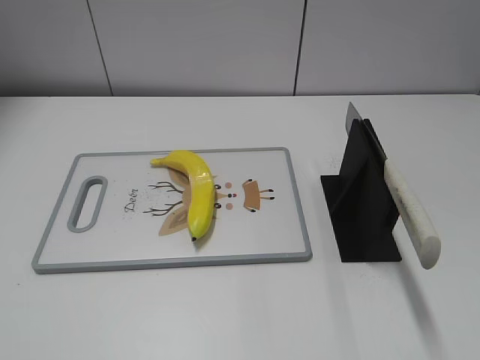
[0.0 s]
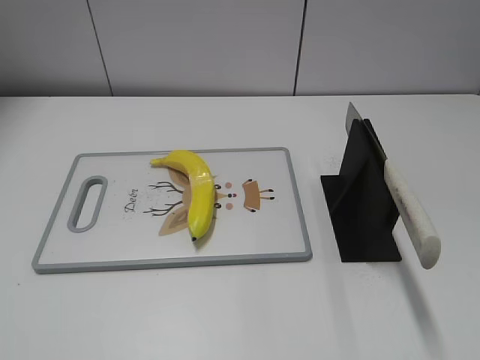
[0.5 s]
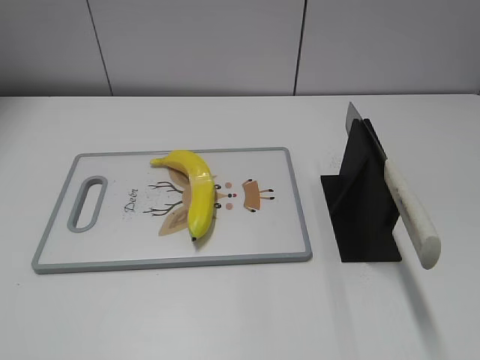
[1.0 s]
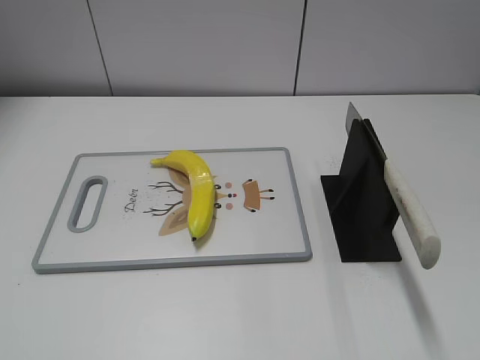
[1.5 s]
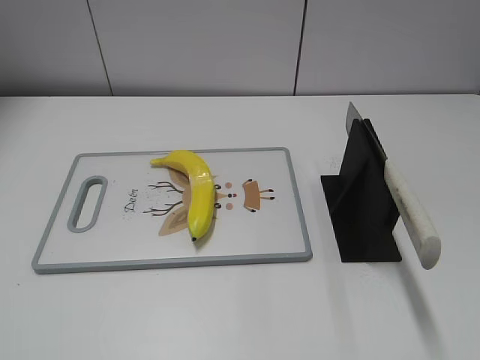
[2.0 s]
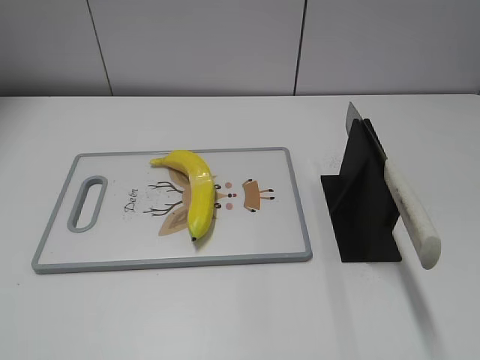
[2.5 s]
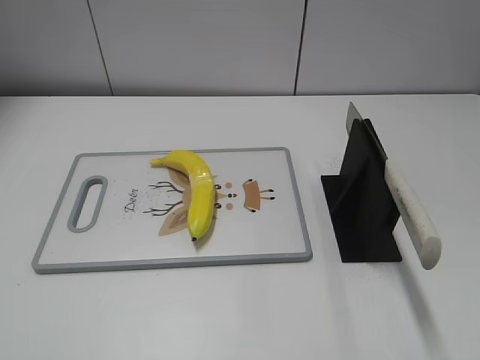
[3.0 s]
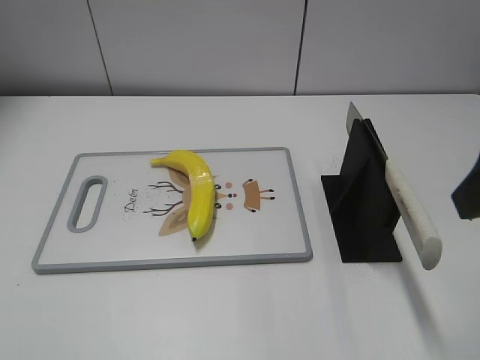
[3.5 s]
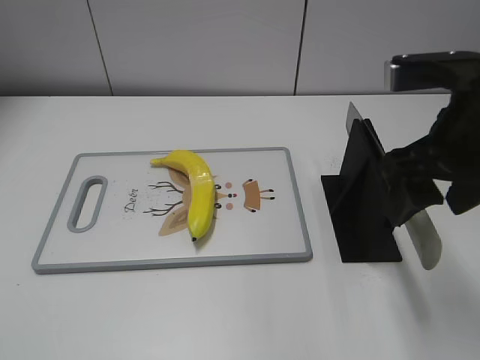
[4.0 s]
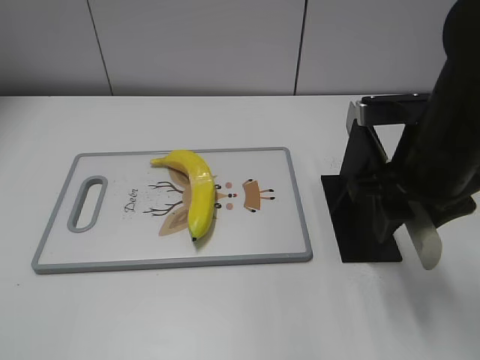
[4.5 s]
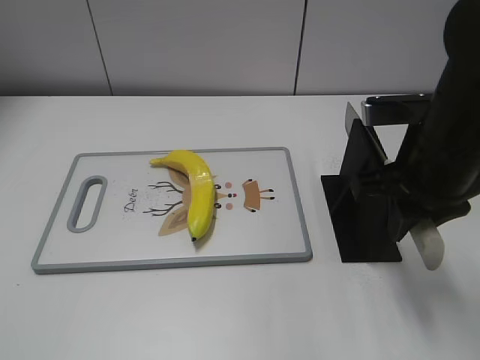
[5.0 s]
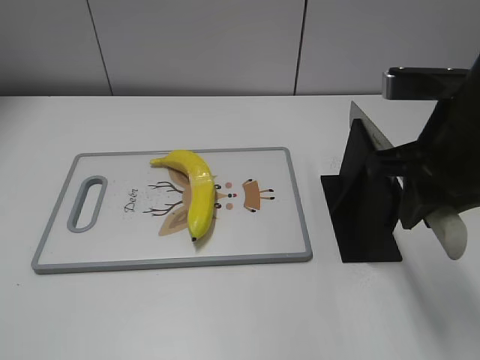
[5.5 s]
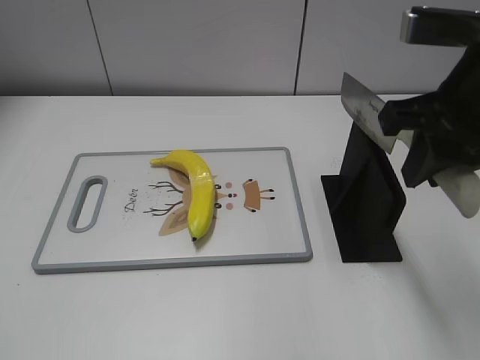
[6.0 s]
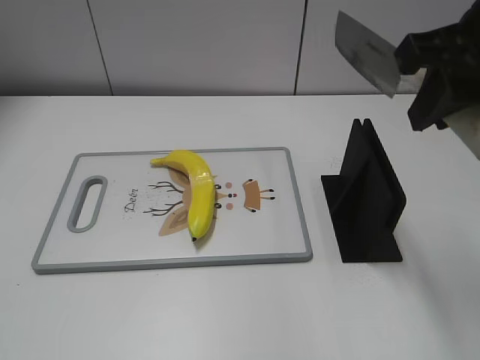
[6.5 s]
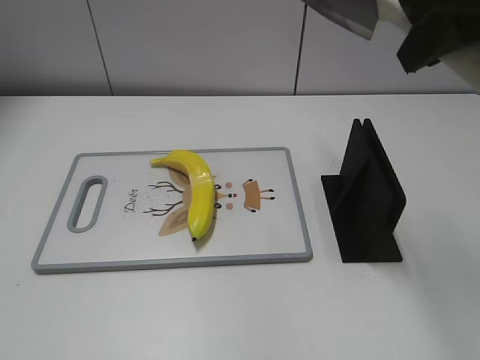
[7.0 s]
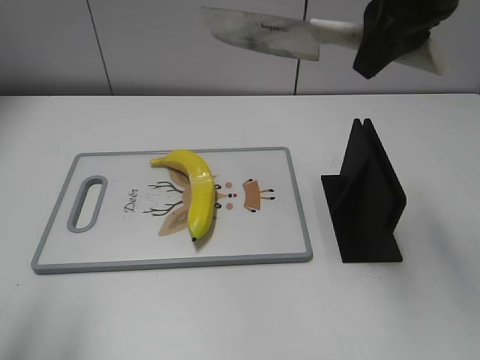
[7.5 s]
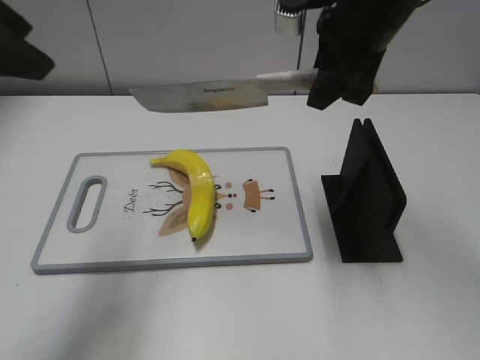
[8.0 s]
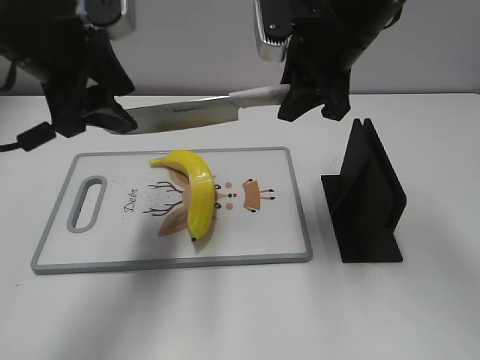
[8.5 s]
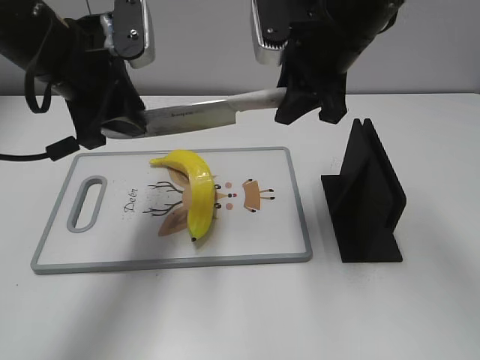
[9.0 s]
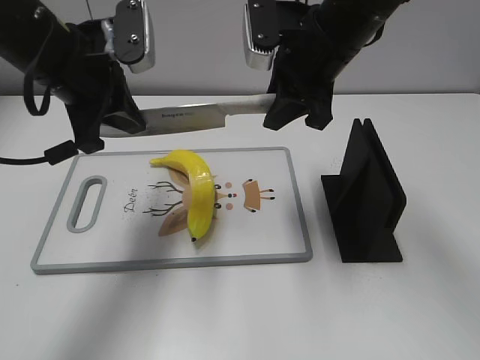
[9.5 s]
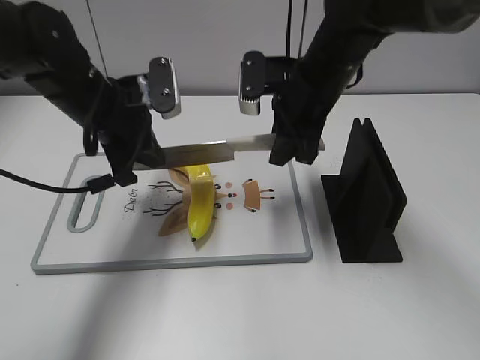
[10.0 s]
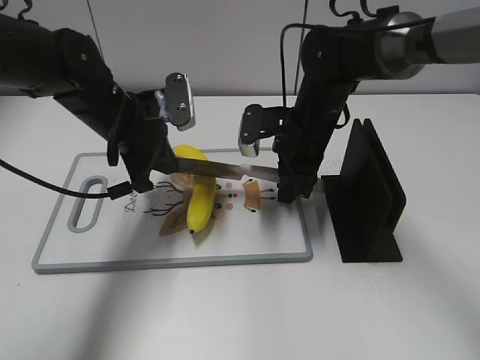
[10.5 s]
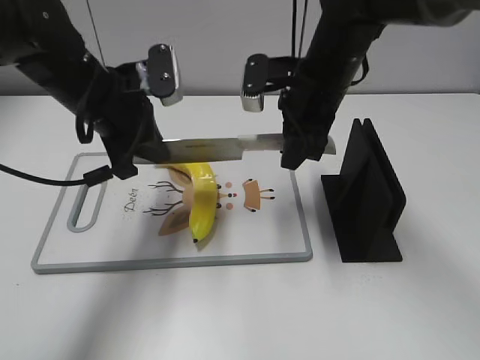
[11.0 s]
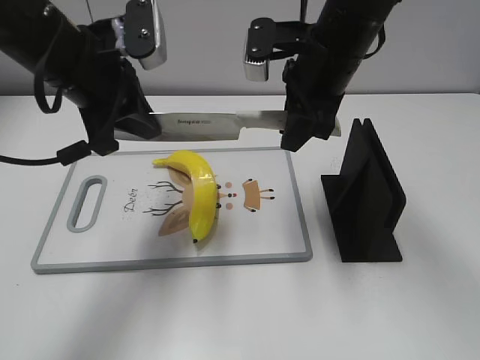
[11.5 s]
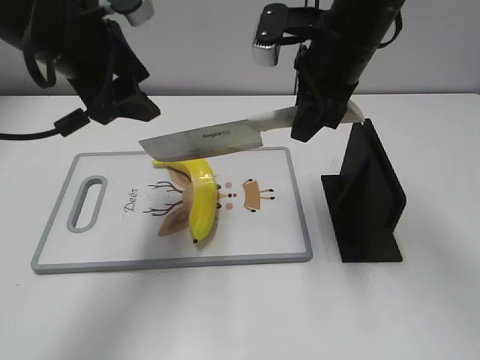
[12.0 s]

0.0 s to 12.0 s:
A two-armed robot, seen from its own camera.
Task of the whole recording: cut plastic banana.
Step, 0.0 to 6.0 s: Grab the knife handle with your right hand.
Step, 6.5 to 11.5 s: Lift the knife with your right hand.
2.0 to 4.0 s: The right gripper shifts about 25 cm forward and to the left.
4.0 to 6.0 s: The right gripper closes.
6.0 to 8.0 s: The right gripper is displaced forward and to the left by approximately 15 cm. The left gripper is displaced forward by approximately 25 cm.
8.0 to 10.0 s: The right gripper is displaced downward by approximately 10 cm. Meanwhile the left gripper travels downward, forward and to the right by roughly 20 cm, and closes up.
10.0 to 12.0 s: Both grippers move upward, approximately 10 cm. The left gripper opens.

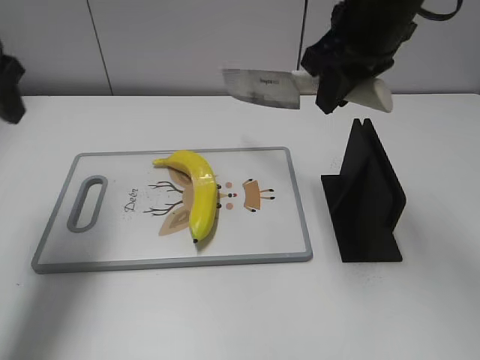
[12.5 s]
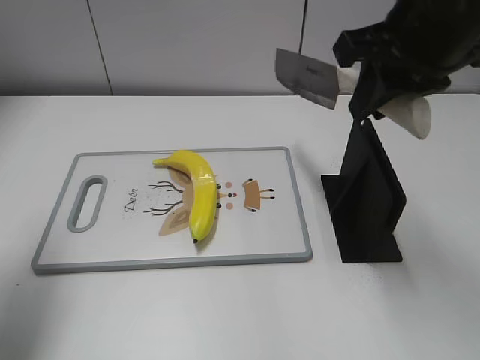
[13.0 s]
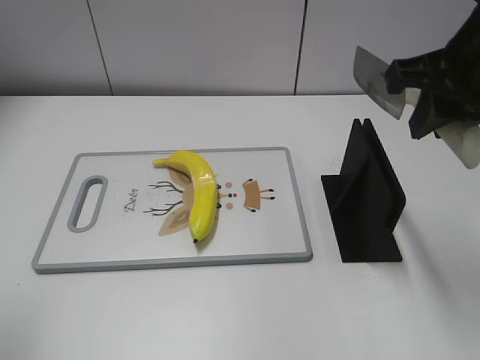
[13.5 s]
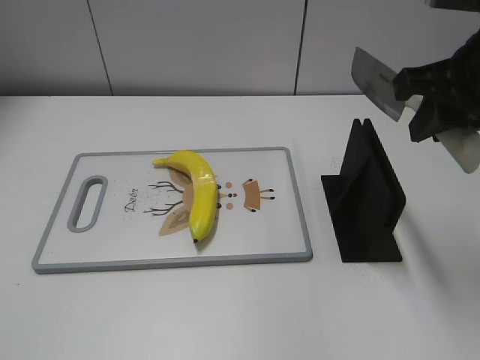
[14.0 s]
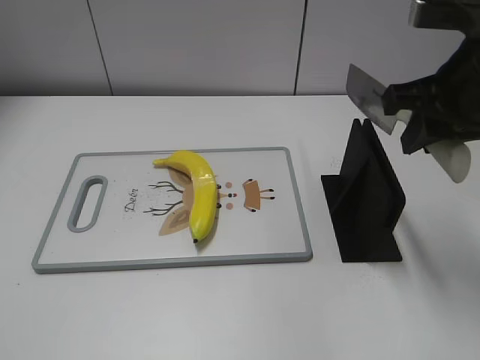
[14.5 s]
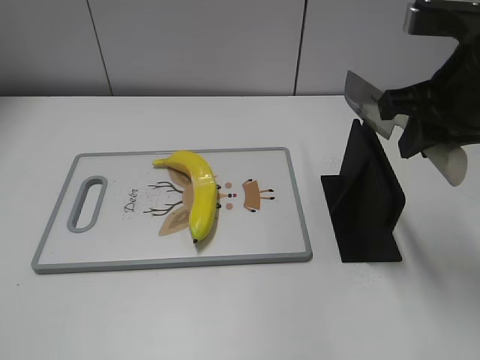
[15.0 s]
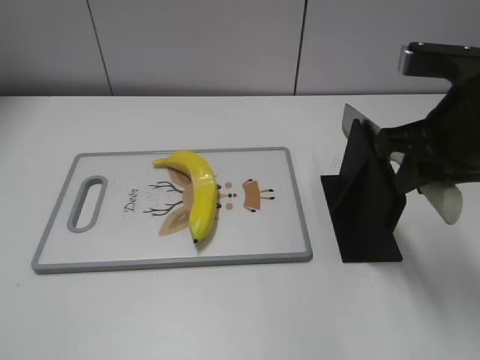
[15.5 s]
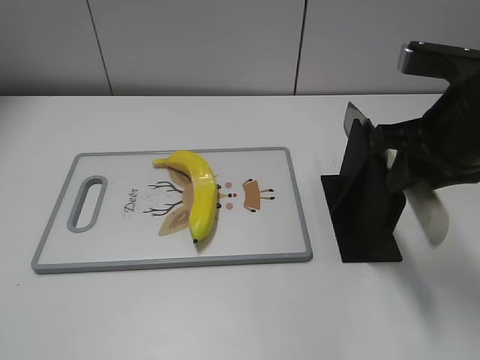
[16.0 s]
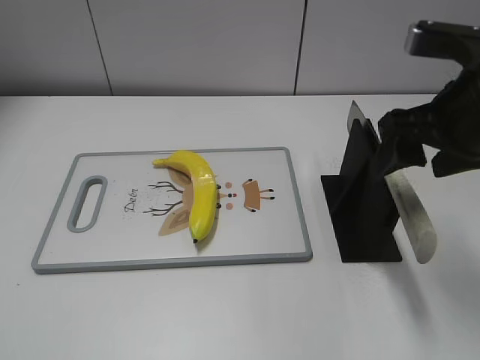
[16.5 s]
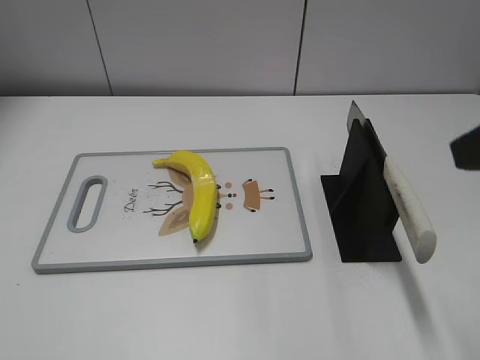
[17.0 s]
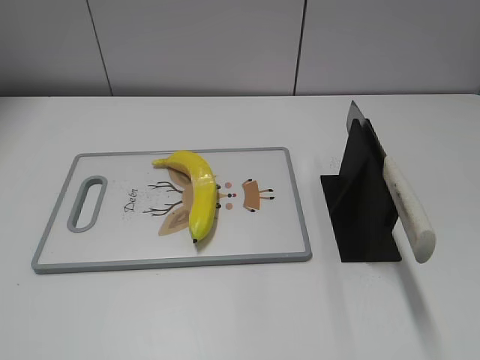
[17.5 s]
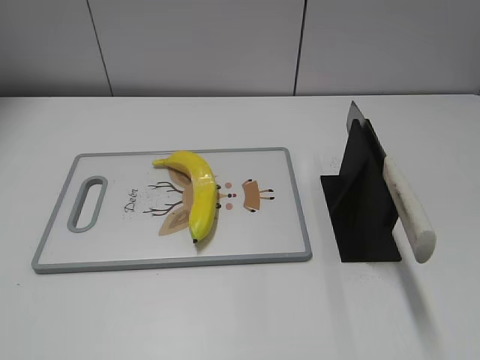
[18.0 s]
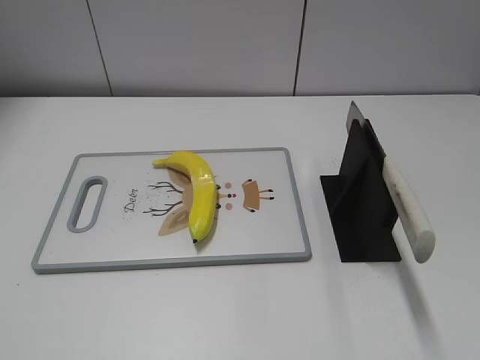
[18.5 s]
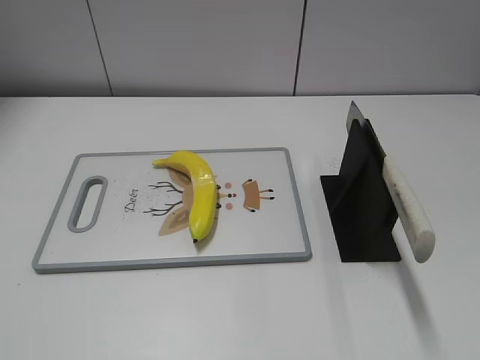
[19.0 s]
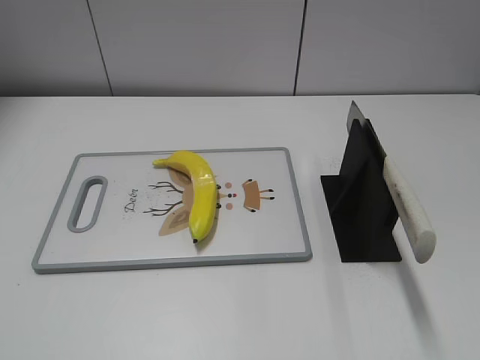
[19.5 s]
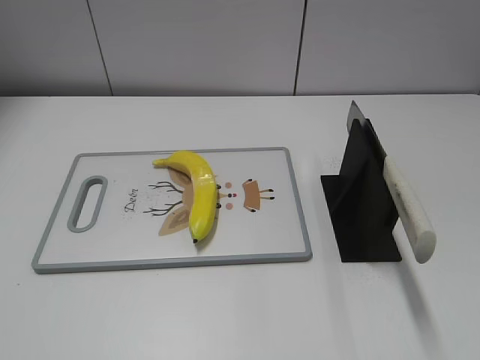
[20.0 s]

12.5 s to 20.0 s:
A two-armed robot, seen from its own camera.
Task of the whole recording: cut plastic banana.
Step, 13.5 to 14.0 s: Secure the blade with your left hand.
Step, 14.5 to 20.0 s: Place the knife on the storage rack with your right hand.
12.5 to 14.5 s: The left gripper is displaced backward by about 30 cm; the right gripper travels to the right and backward by about 10 cm.
14.5 to 16.5 s: The right gripper opens.
16.5 to 18.0 s: The right gripper goes about 30 cm backward and to the right.

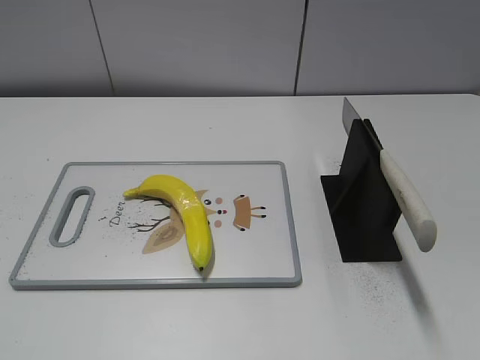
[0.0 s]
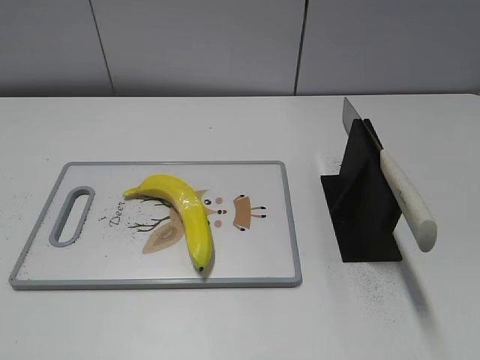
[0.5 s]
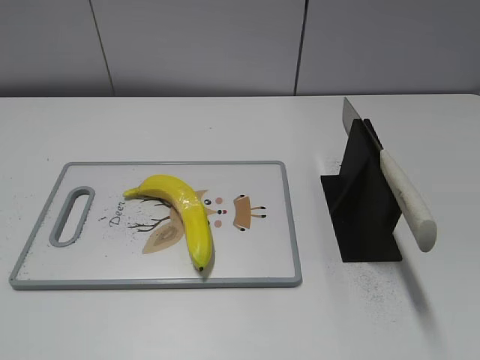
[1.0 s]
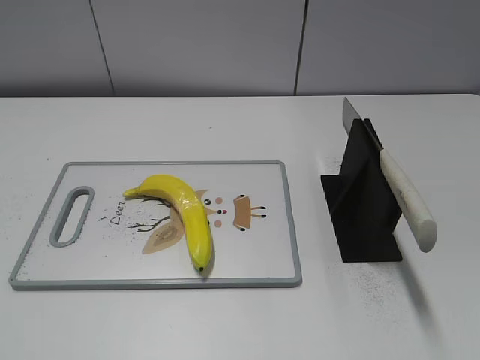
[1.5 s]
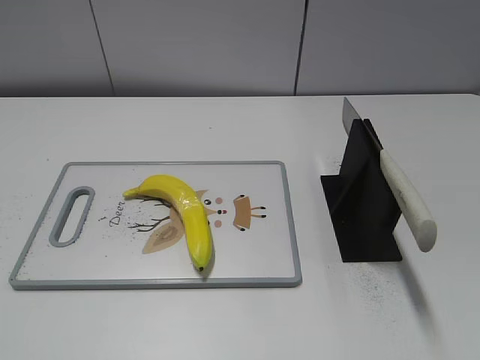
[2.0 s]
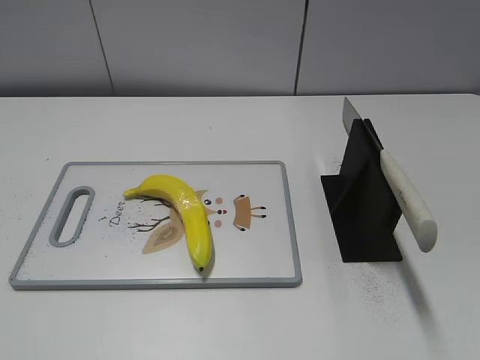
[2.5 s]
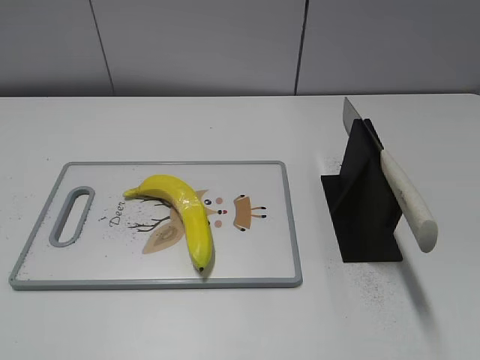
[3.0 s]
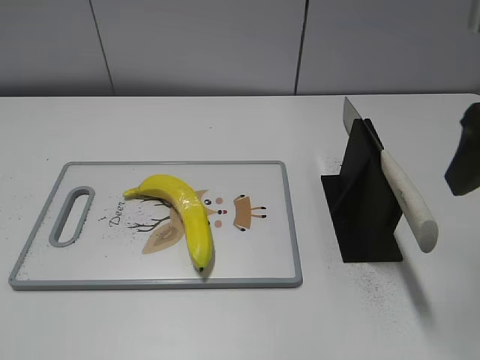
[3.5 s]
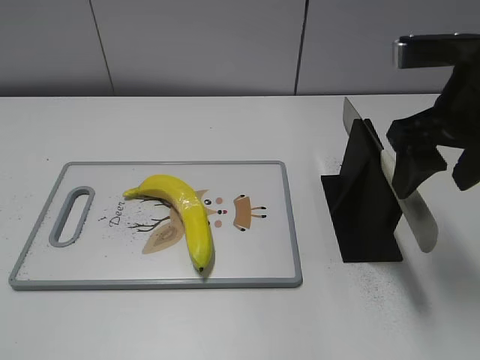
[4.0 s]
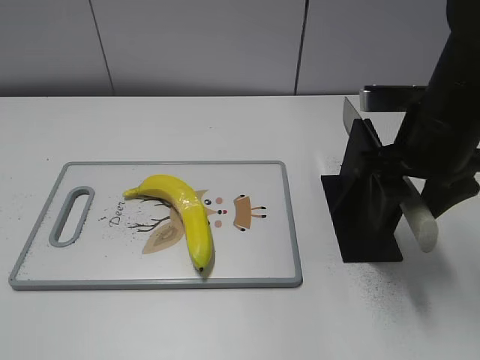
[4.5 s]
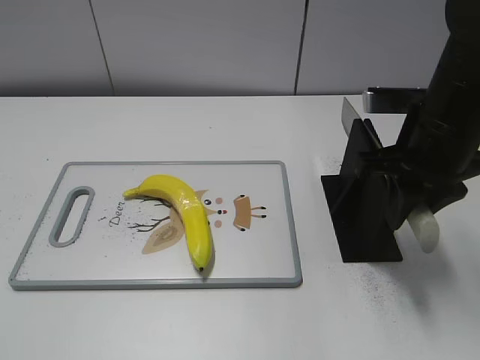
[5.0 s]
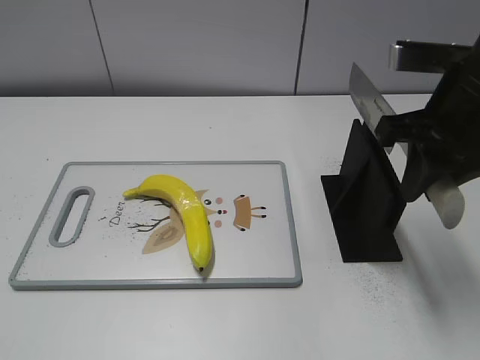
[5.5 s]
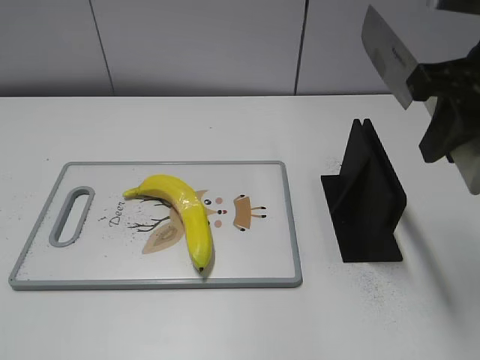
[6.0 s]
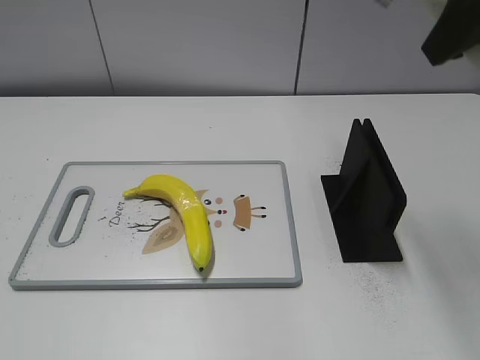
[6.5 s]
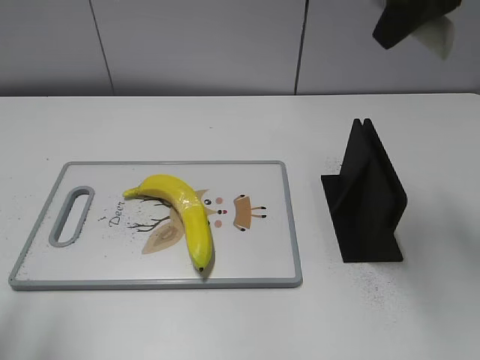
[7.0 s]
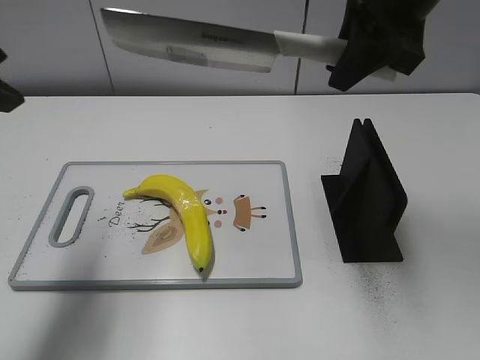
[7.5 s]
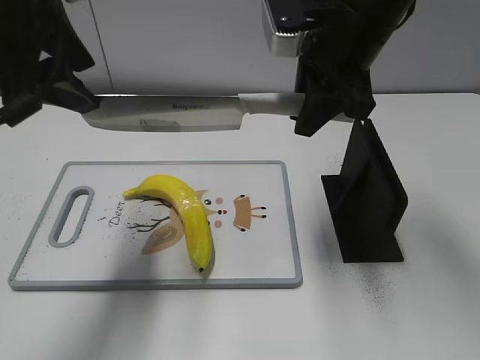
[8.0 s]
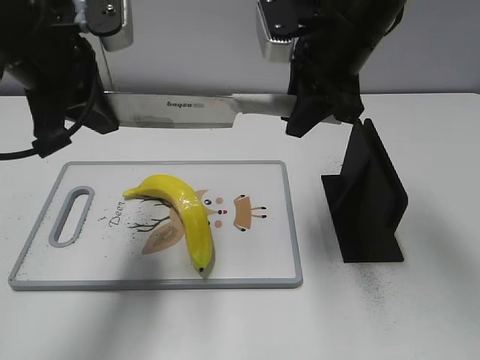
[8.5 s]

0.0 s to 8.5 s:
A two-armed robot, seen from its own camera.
Task of the whole recording: cut plastic banana.
Step, 0.0 to 5.5 s: Grab the knife handle with your right hand.
2.0 to 4.0 s: The right gripper moves forward, roughly 30 cm.
4.0 to 6.5 s: The right gripper goes approximately 10 cm upward, and closes up.
6.5 to 8.5 s: The left gripper travels forward and to the right by roughly 30 cm, and closes its fingers, while the right gripper goes roughly 20 cm downward, forward and to the left.
